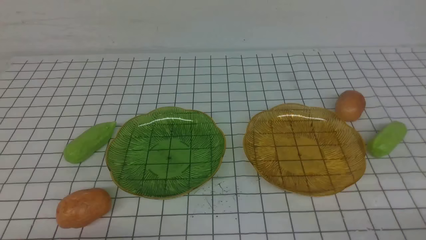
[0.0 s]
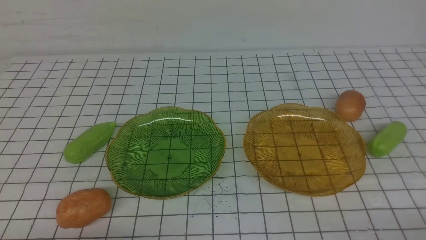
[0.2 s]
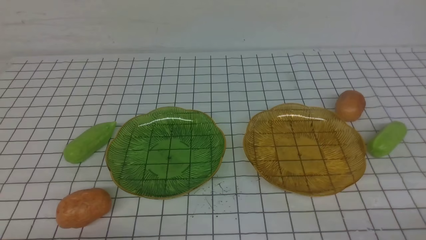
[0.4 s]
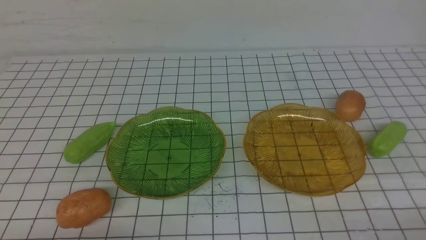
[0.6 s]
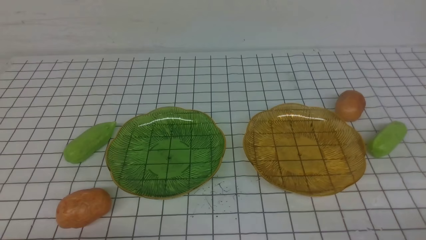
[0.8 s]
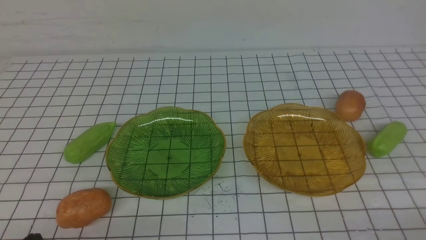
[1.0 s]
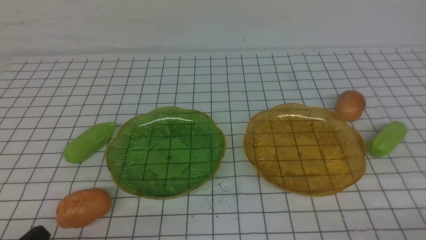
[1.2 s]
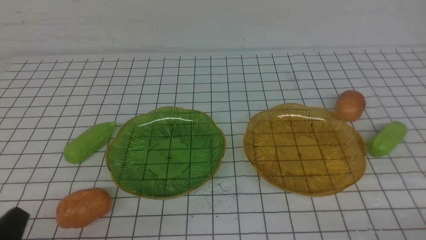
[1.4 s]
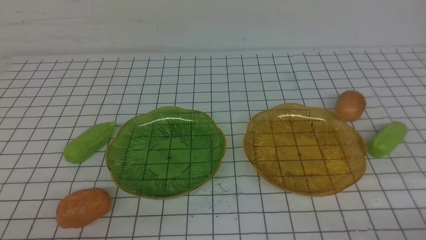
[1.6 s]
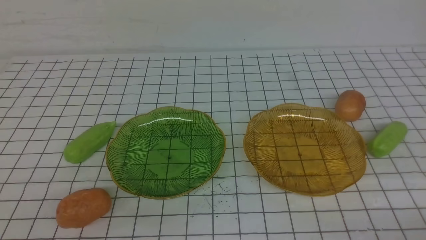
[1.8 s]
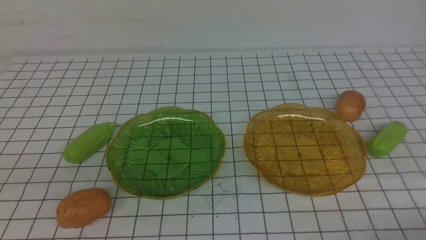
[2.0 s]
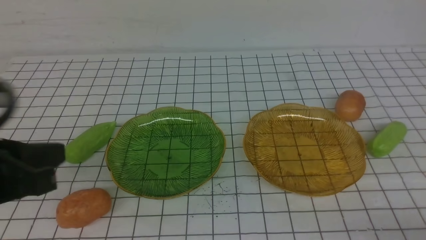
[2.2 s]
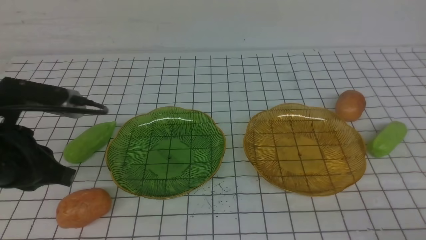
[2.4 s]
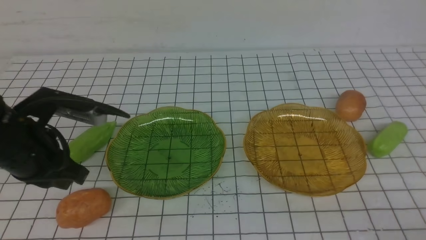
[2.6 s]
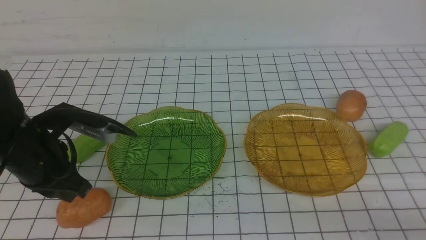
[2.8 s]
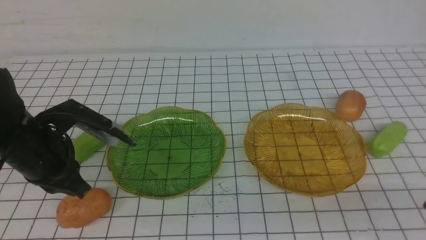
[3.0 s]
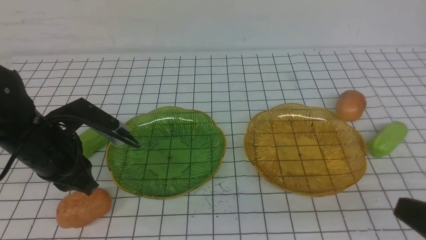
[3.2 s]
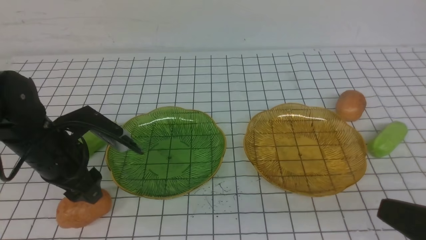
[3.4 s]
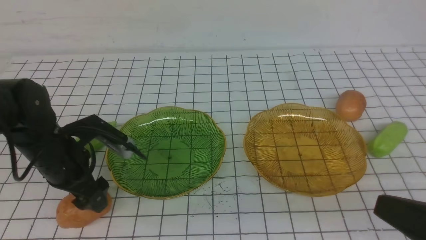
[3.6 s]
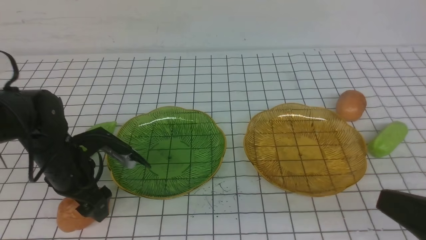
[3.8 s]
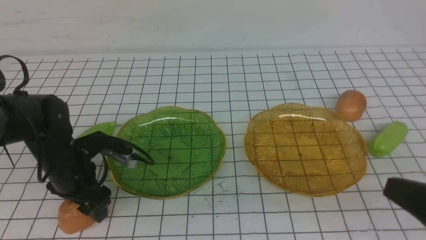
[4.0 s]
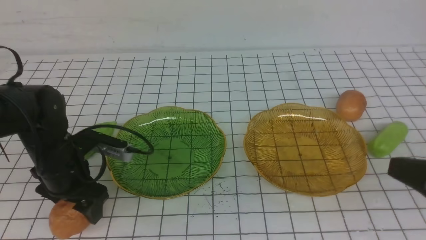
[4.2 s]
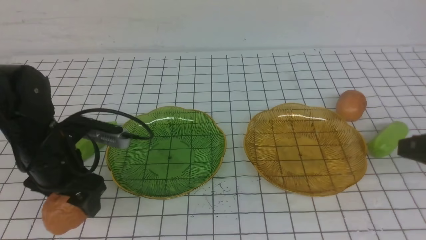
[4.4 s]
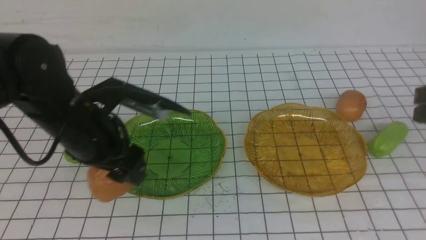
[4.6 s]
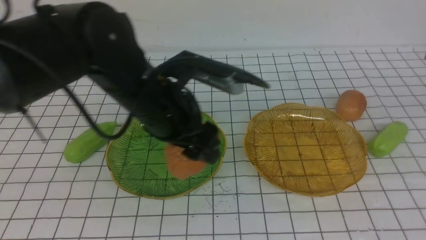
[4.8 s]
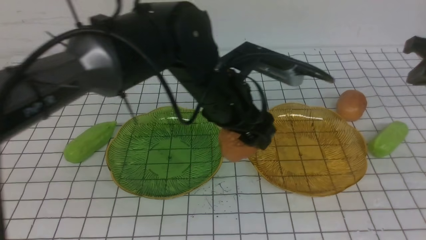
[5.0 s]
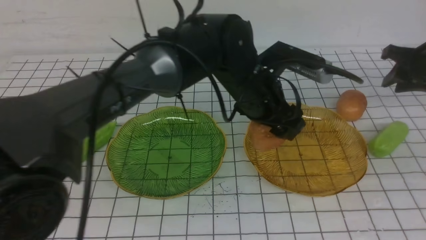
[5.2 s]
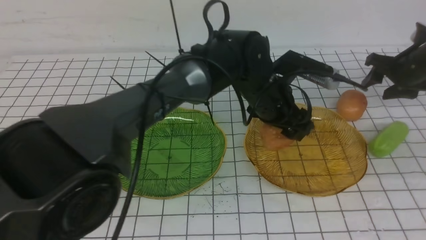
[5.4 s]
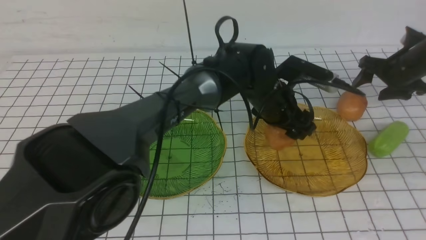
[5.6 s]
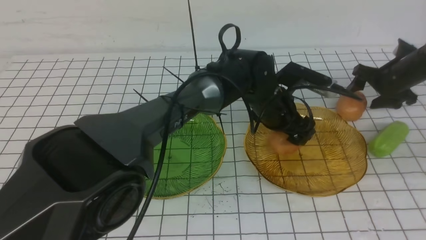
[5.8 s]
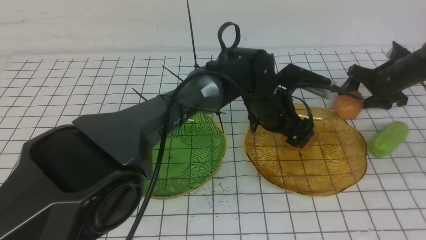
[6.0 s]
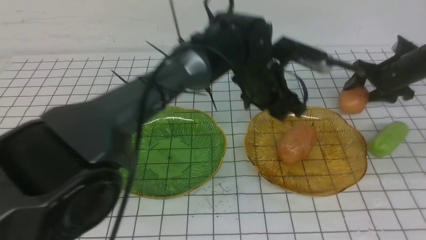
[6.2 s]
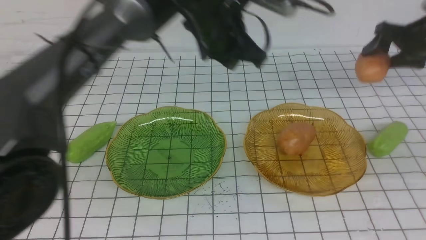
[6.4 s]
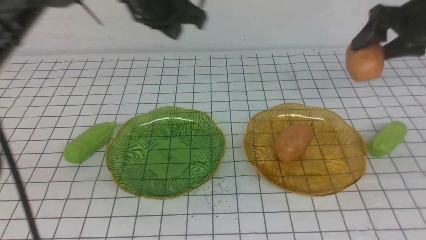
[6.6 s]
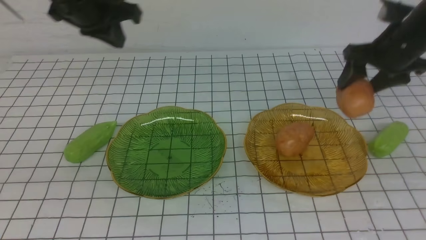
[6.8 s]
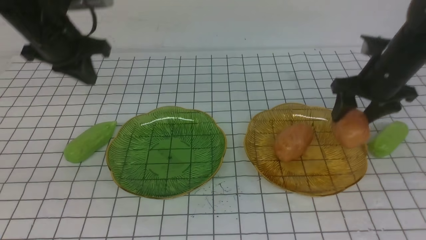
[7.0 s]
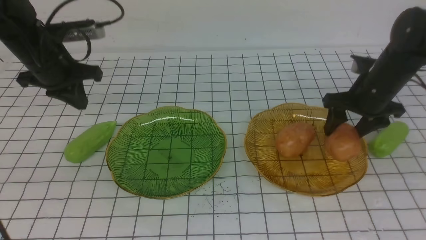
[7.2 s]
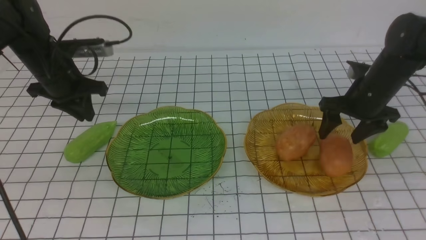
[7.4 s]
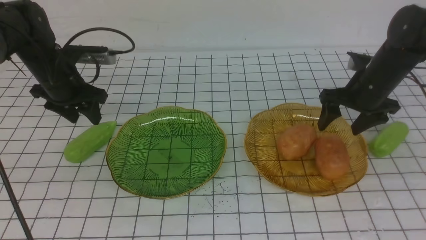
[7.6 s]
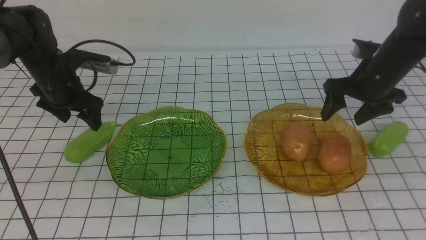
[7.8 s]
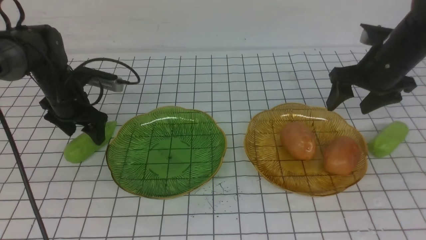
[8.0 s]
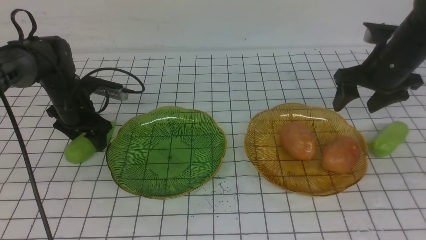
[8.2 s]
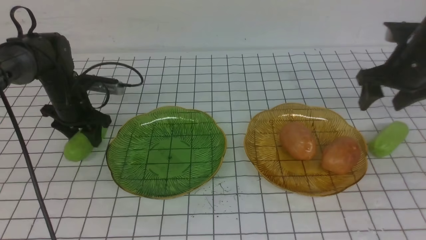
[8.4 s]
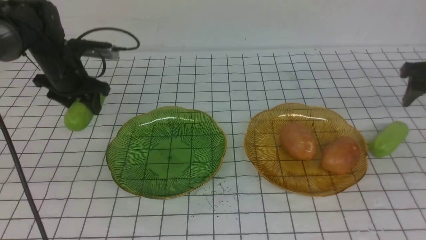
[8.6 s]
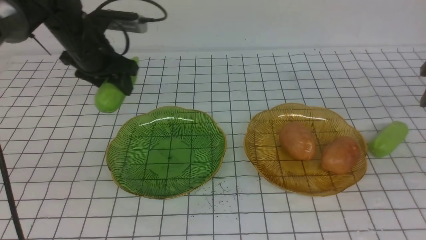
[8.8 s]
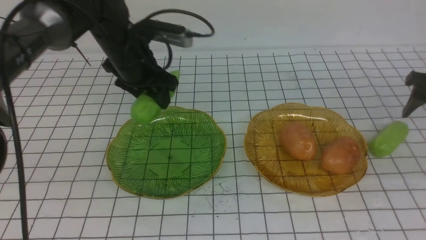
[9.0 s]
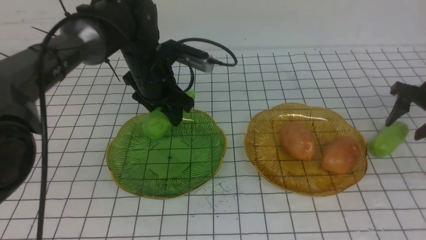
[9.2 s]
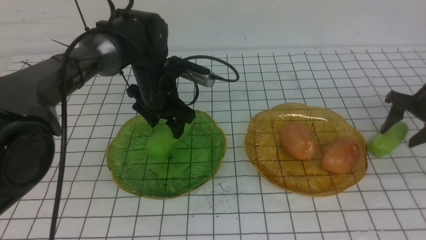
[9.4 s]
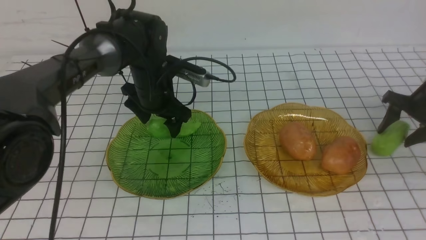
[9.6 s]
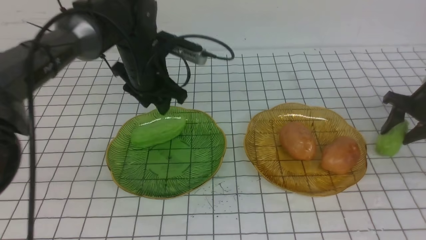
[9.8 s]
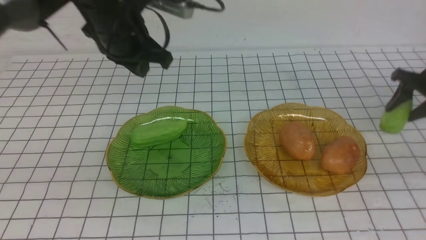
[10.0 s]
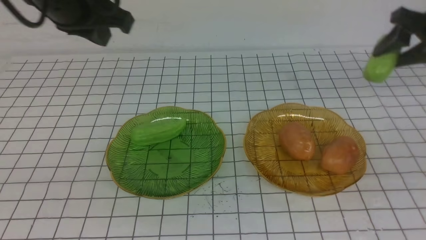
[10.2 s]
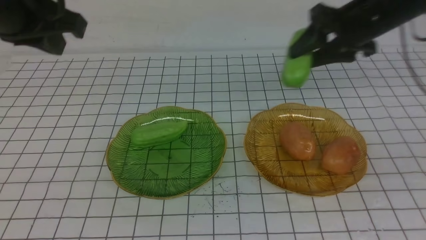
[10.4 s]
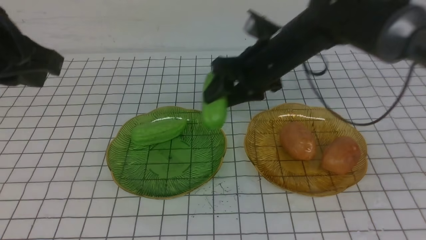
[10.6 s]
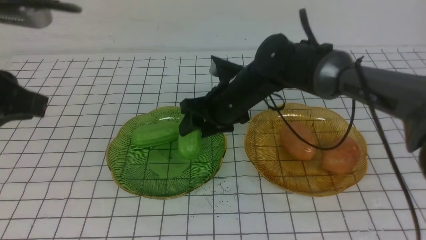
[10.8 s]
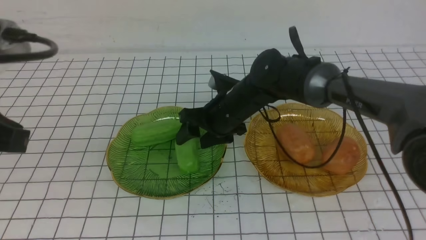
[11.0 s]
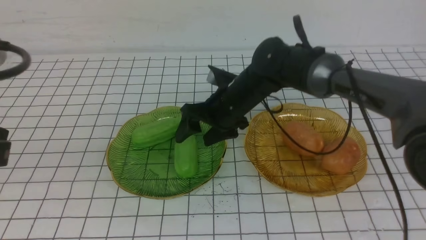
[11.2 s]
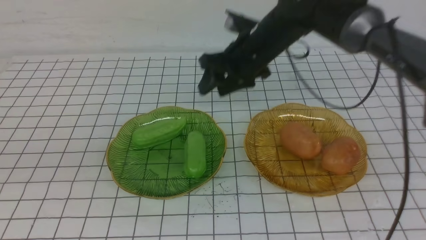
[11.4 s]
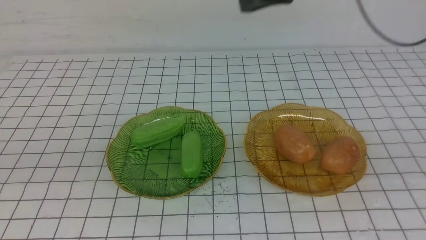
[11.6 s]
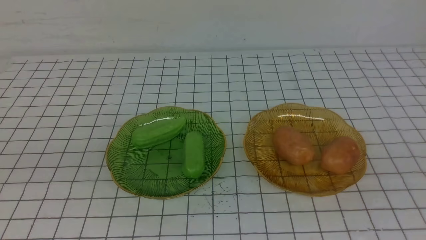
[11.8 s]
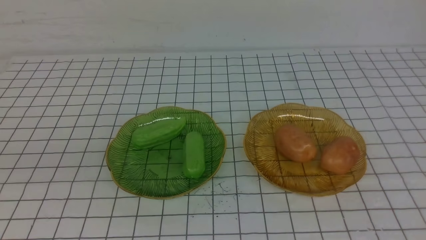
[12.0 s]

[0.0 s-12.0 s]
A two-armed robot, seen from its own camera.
Step, 0.0 to 6.0 s: Grab a potato with your left arm and put it on the right plate.
Step, 6.2 to 7.4 s: Grab a potato with your right arm and put it on the right plate.
Step, 7.6 to 9.6 s: use the left arm to grab a chayote and put it into the left plate.
Step, 9.8 to 11.2 s: Grab the chayote with your right arm and put it on the left plate.
1.6 to 3.0 s: The left gripper is displaced forward by approximately 20 cm.
3.0 to 4.4 s: The right gripper moves forward and upward, about 15 cm, while the left gripper opens its fingers.
4.4 to 6.0 s: The right gripper moves forward and downward, about 35 cm, and opens its fingers. Meanwhile the left gripper heads to the right and forward, covering approximately 30 cm.
6.0 to 7.6 s: The right gripper moves to the left, backward and upward, about 15 cm; the left gripper moves to the left, roughly 35 cm, and closes and opens again.
7.6 to 9.0 s: The grippers both shift to the right by about 15 cm.
9.0 to 10.4 s: The right gripper goes some 20 cm to the left and upward; the left gripper shifts roughly 20 cm upward, backward and to the left, and closes.
10.4 to 12.0 s: The right gripper goes some 30 cm upward and backward, and closes its fingers, while the left gripper heads backward, covering approximately 15 cm.

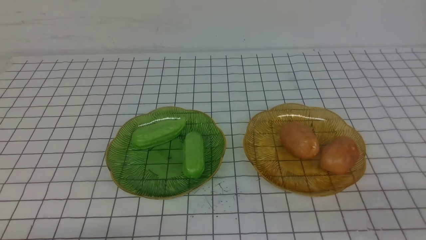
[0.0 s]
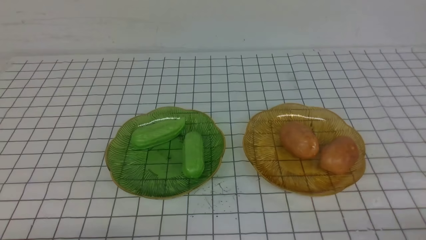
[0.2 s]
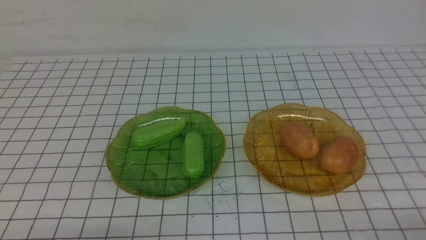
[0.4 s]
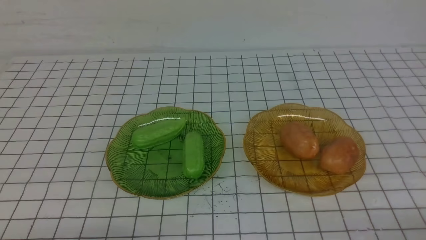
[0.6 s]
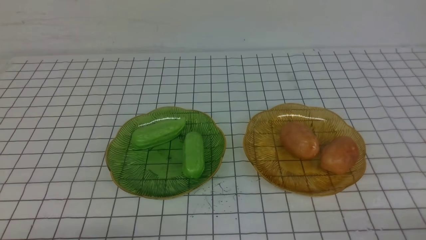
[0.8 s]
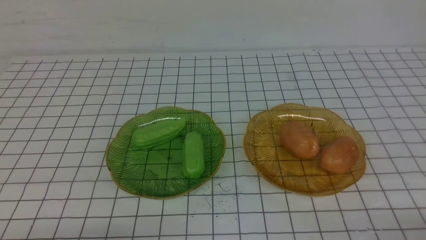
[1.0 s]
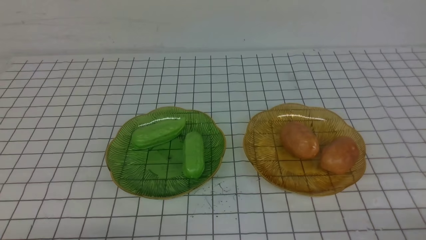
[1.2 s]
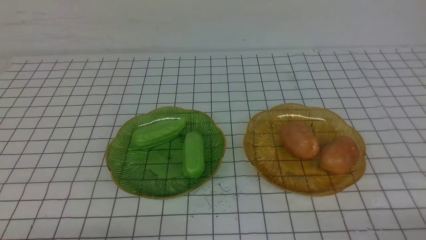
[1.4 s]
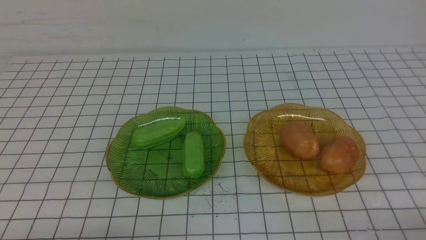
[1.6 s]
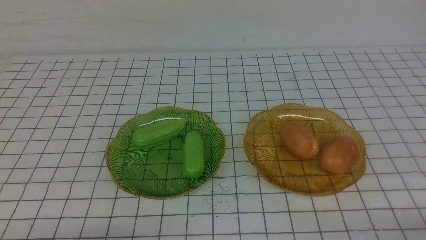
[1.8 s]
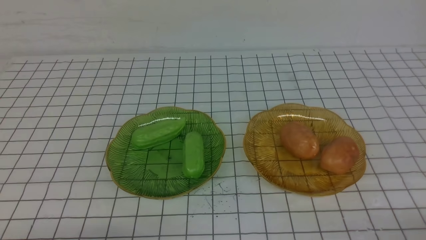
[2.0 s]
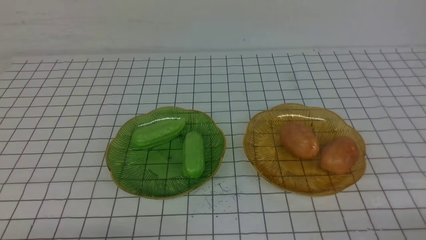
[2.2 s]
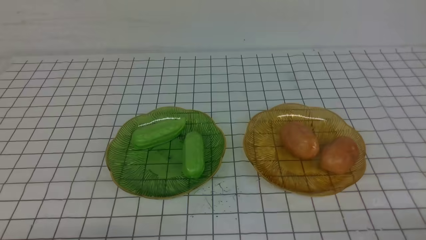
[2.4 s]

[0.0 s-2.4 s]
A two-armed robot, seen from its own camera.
1.2 to 2.4 s: Neither gripper changes place.
